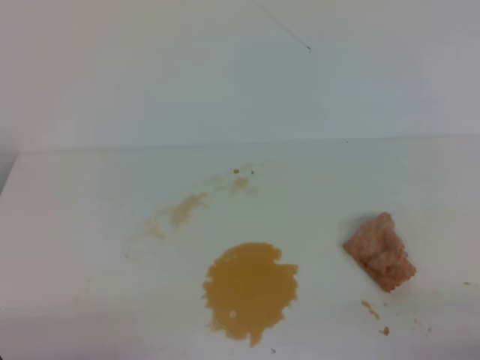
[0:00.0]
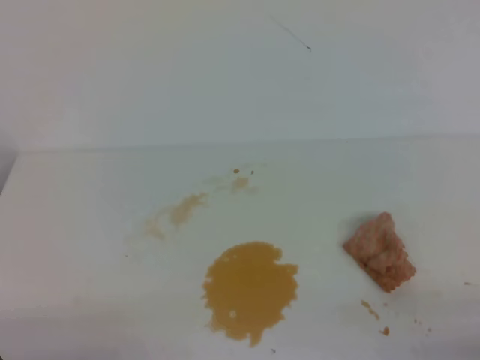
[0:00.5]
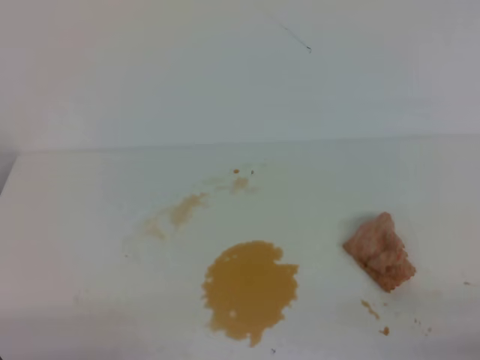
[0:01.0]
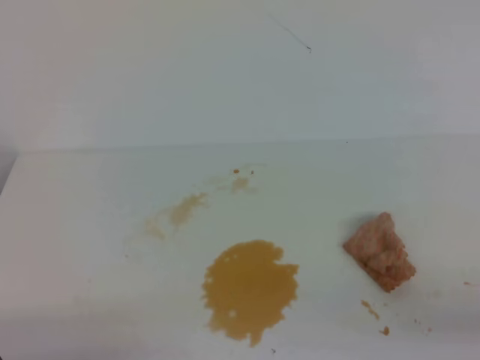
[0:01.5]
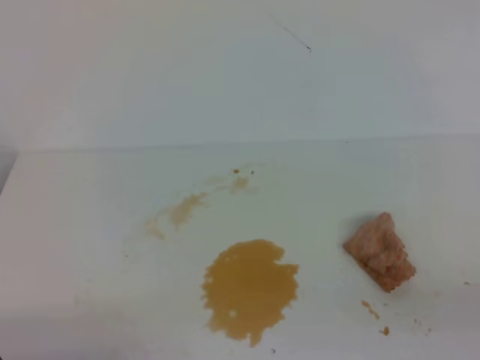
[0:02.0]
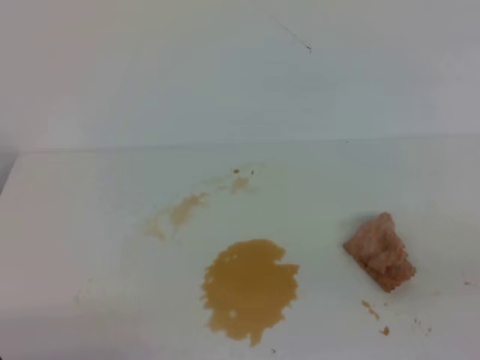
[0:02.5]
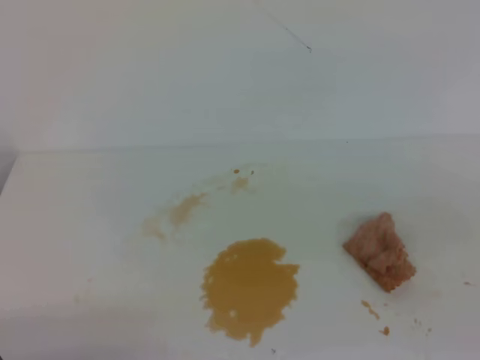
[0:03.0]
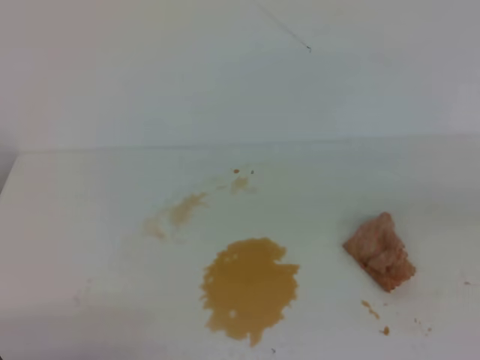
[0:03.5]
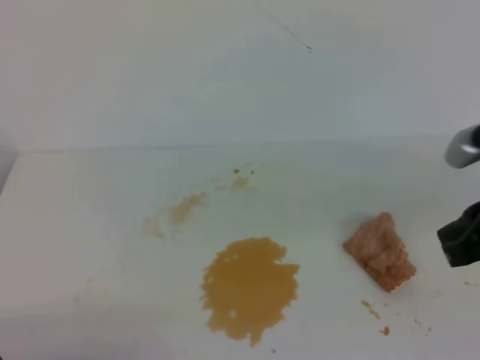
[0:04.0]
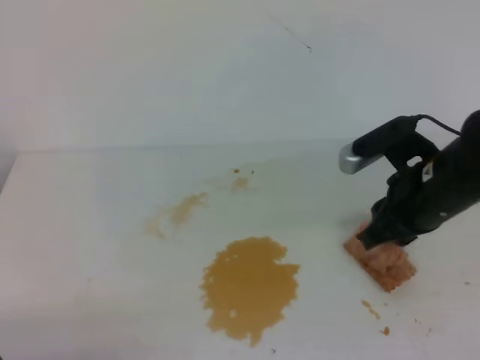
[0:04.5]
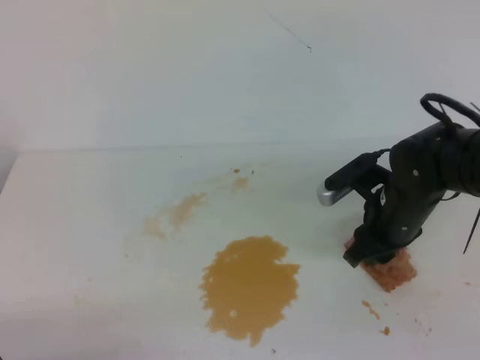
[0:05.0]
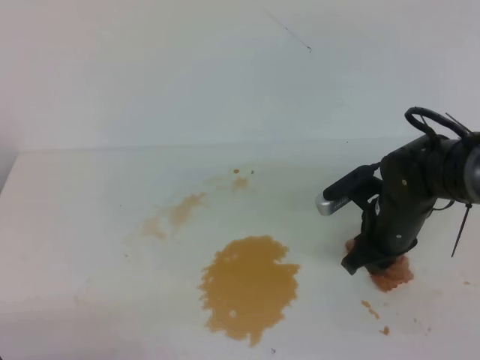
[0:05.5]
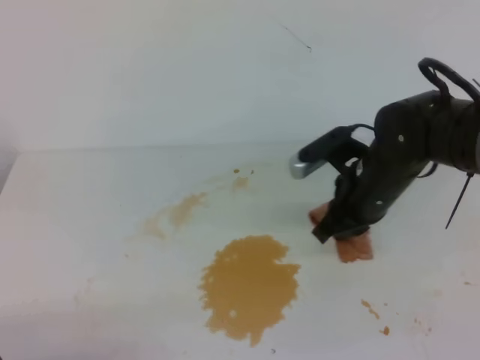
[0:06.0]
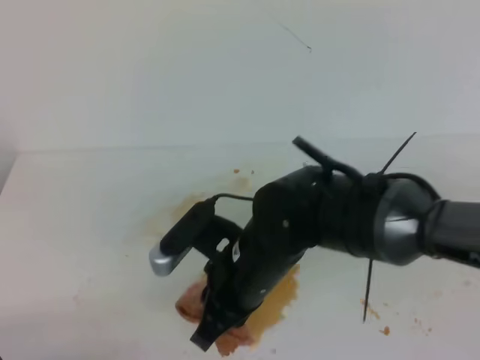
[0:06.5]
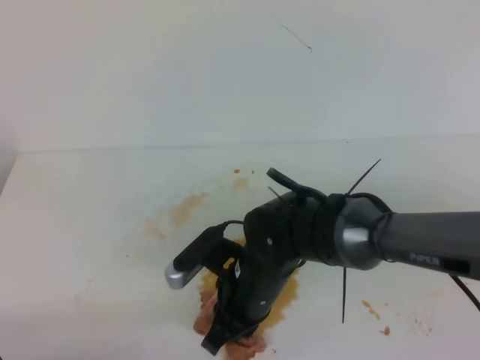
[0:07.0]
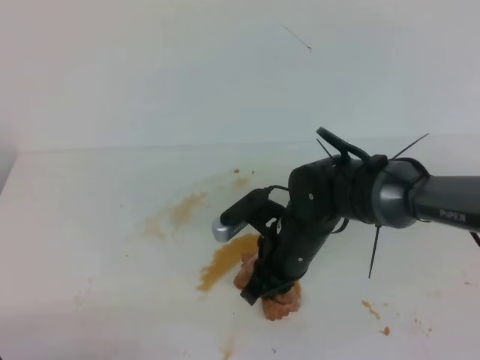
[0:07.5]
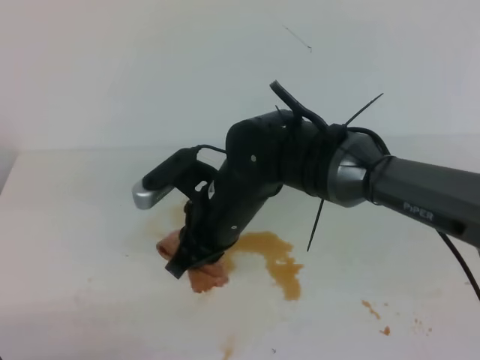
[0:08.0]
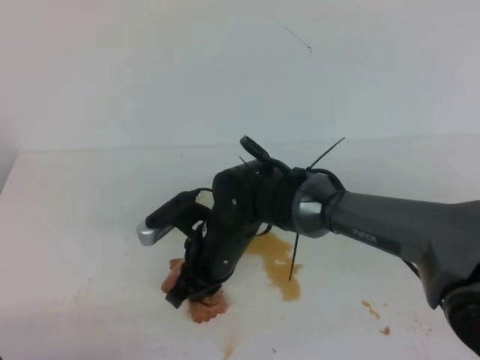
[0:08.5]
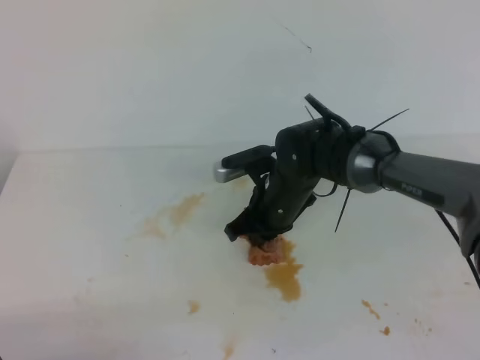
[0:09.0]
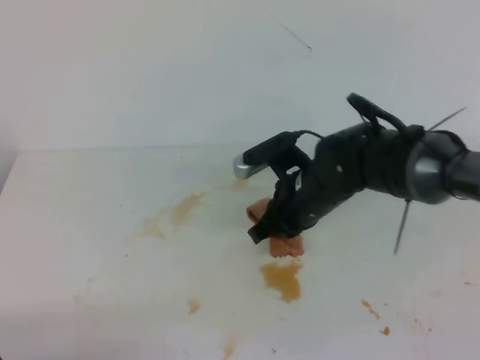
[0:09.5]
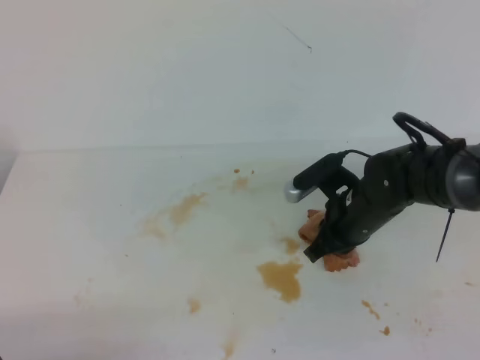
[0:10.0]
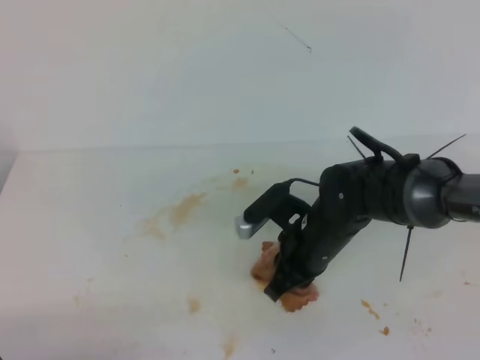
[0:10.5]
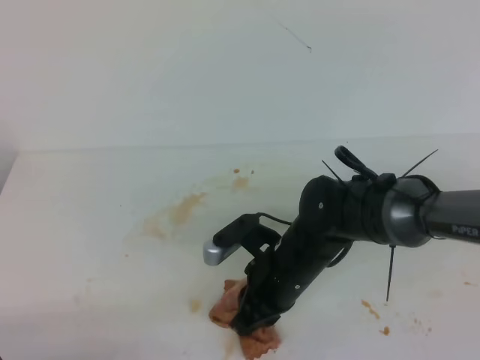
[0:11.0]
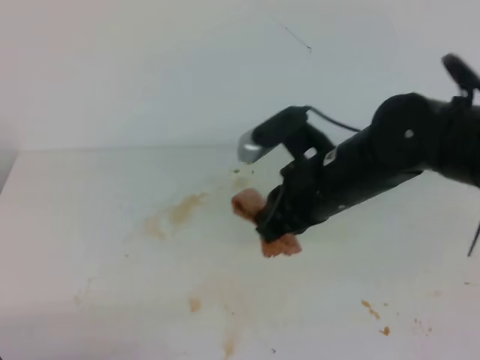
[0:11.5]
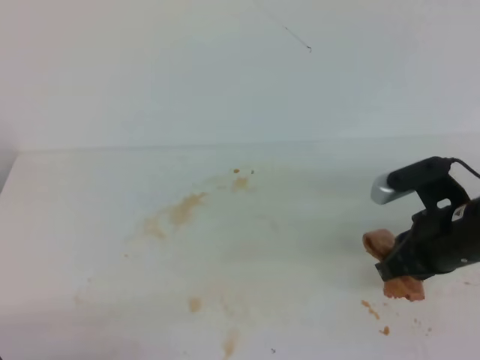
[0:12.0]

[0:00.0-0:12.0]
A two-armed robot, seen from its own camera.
0:02.0 to 0:04.0: The right gripper heads forward and to the left, covering approximately 20 cm.
0:04.0 to 0:06.0: The right gripper travels forward, to the left and downward by approximately 20 cm, and opens, then closes again.
0:06.0 to 0:08.0: The right gripper swings left and right, some 15 cm each way, with 2 reversals.
0:08.0 to 0:10.0: The right gripper travels to the right by some 15 cm.
0:10.0 to 0:12.0: The right gripper is displaced backward, to the right and upward by approximately 10 cm.

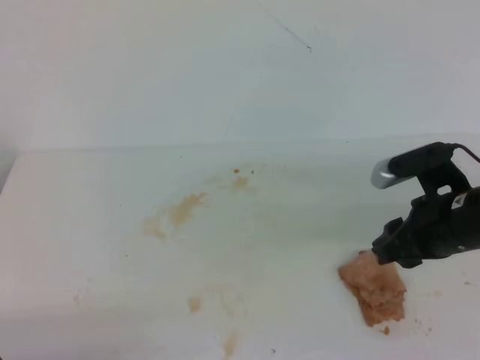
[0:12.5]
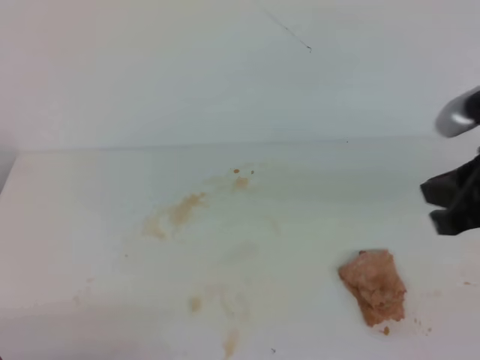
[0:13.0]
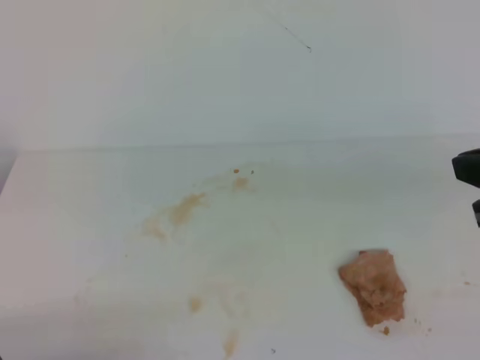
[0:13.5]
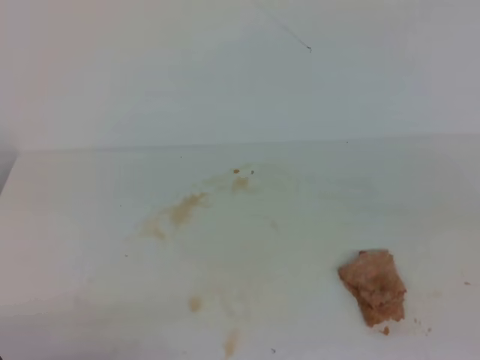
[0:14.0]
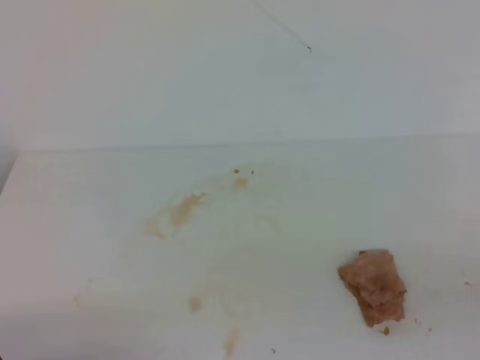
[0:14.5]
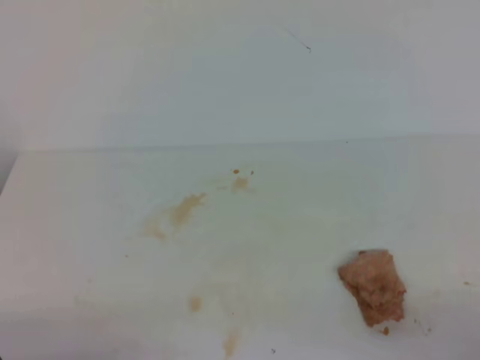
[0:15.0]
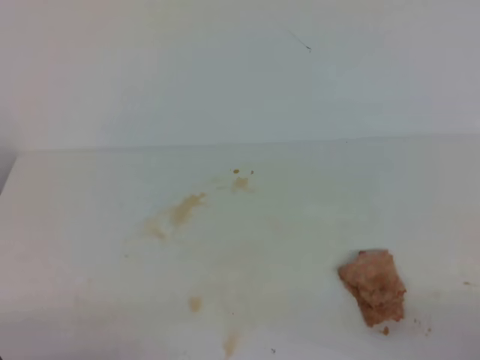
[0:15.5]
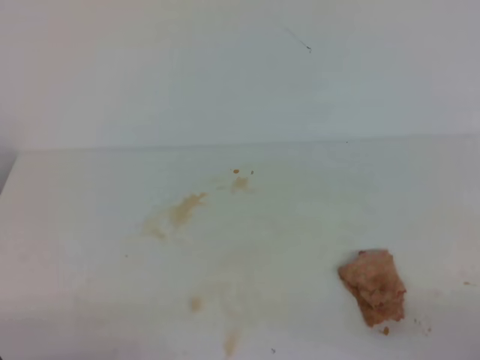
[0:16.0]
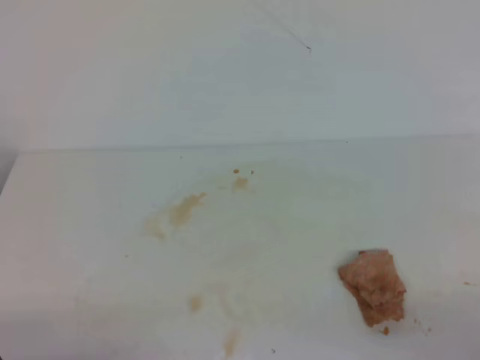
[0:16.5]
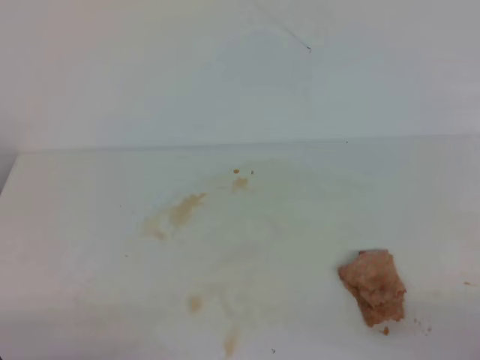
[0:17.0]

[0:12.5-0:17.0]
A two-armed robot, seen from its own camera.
0:12.5 to 0:14.5: The right gripper goes approximately 25 cm backward and to the right, and closes its fingers.
